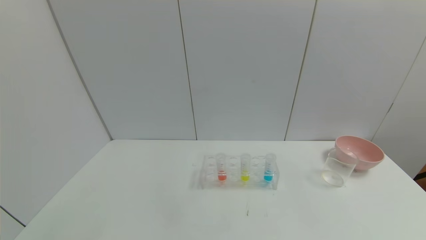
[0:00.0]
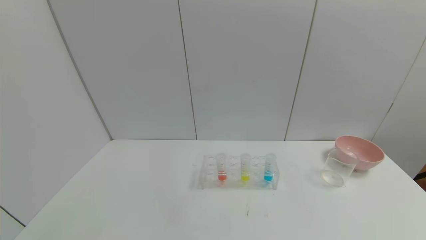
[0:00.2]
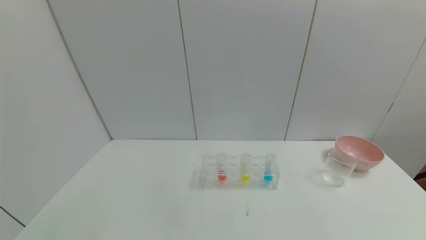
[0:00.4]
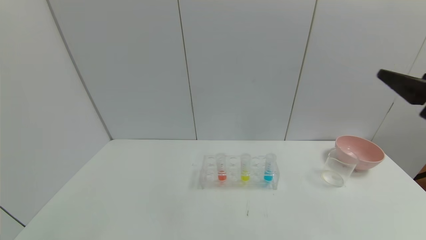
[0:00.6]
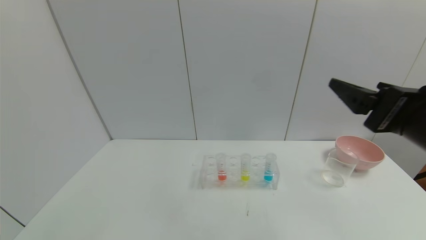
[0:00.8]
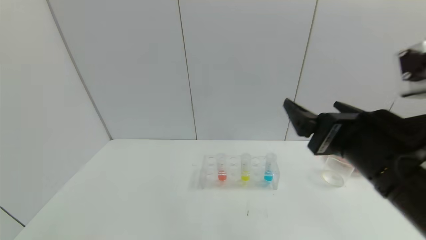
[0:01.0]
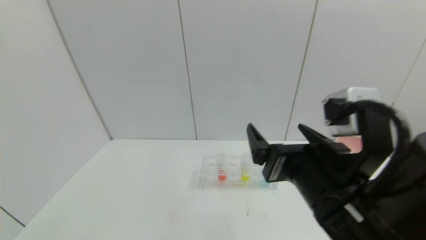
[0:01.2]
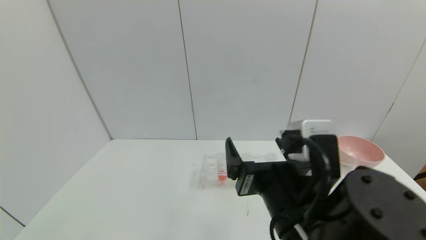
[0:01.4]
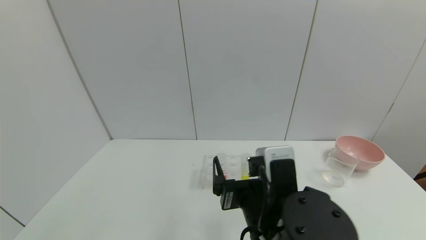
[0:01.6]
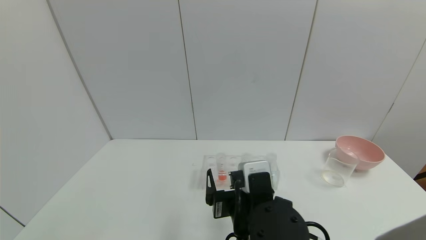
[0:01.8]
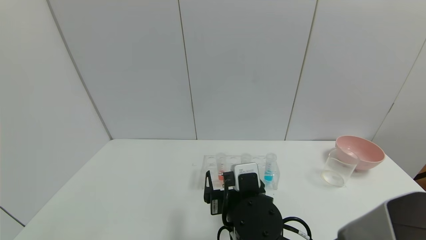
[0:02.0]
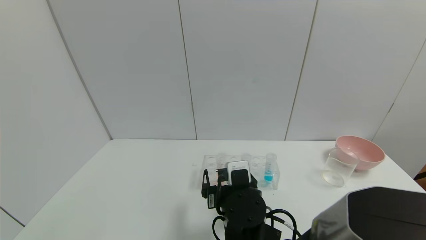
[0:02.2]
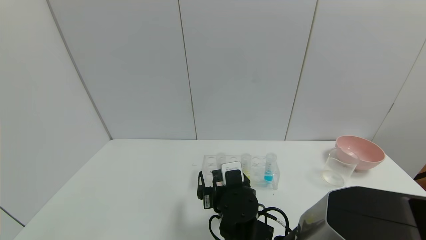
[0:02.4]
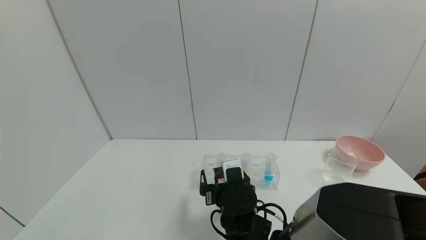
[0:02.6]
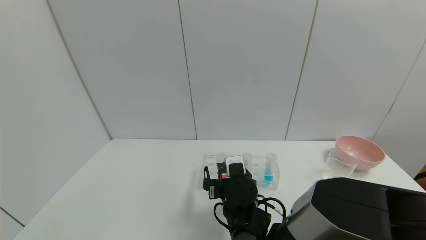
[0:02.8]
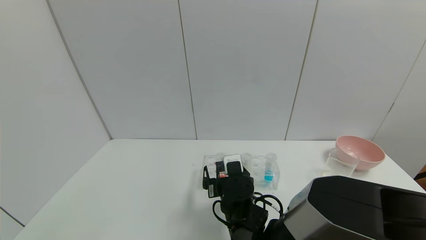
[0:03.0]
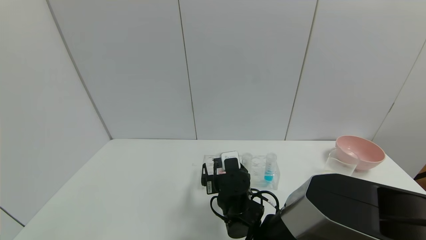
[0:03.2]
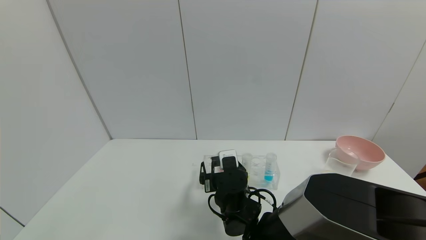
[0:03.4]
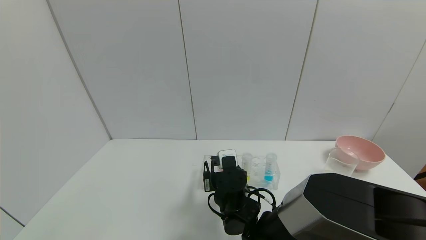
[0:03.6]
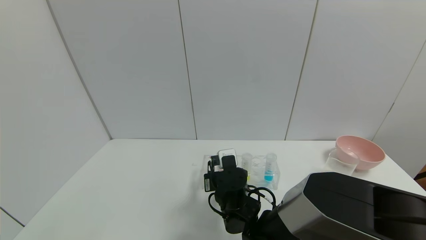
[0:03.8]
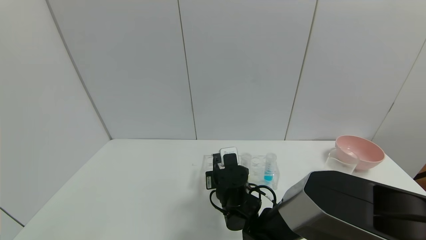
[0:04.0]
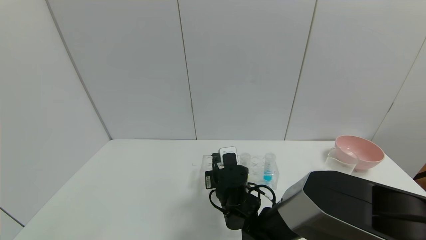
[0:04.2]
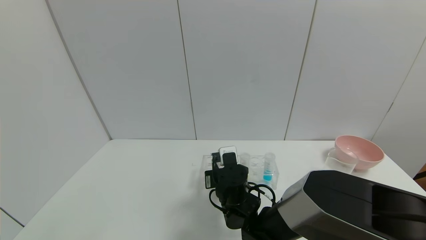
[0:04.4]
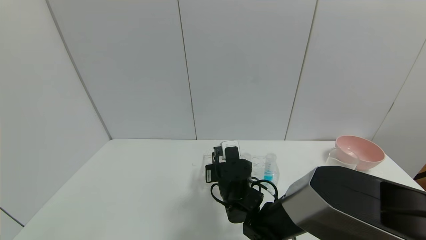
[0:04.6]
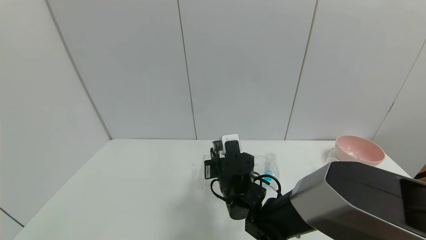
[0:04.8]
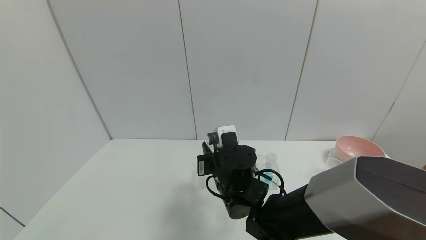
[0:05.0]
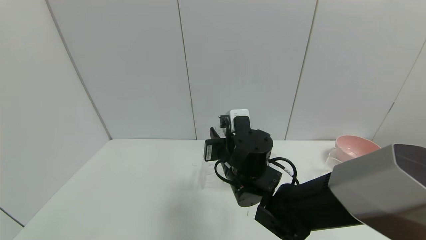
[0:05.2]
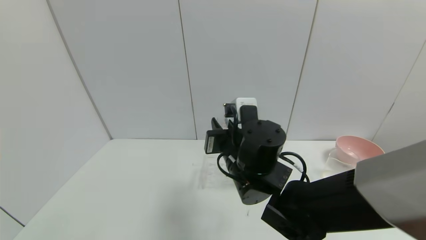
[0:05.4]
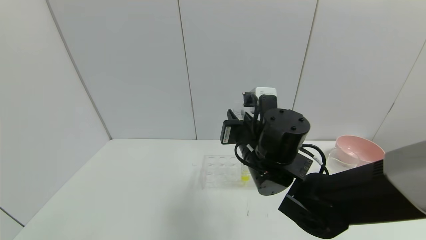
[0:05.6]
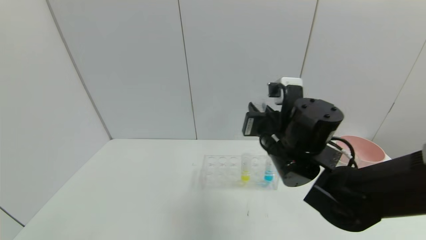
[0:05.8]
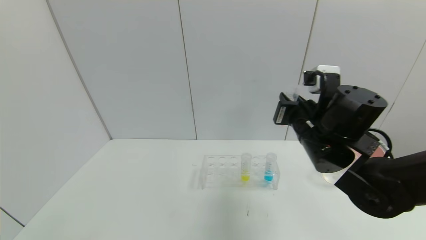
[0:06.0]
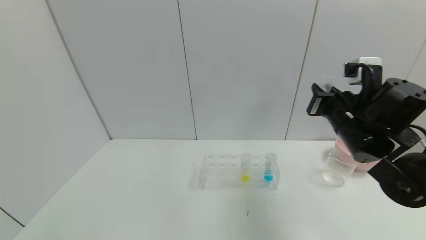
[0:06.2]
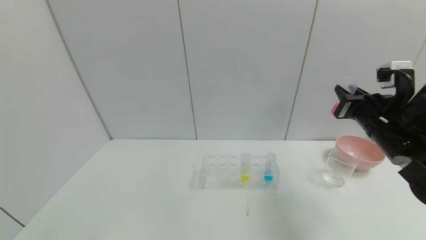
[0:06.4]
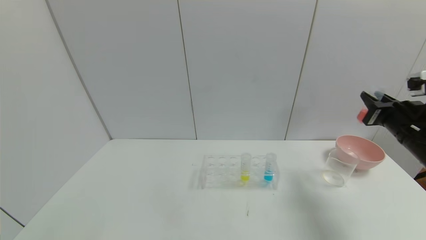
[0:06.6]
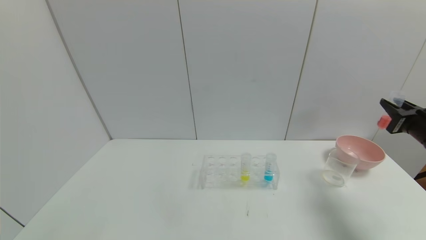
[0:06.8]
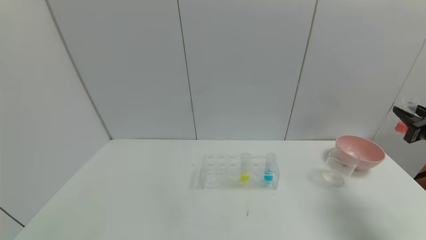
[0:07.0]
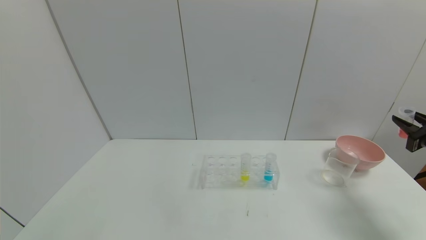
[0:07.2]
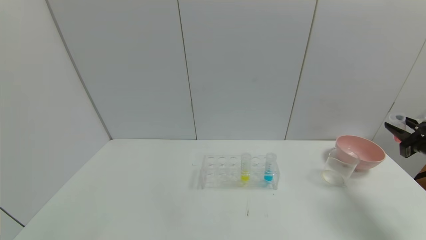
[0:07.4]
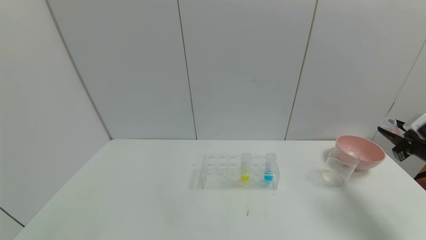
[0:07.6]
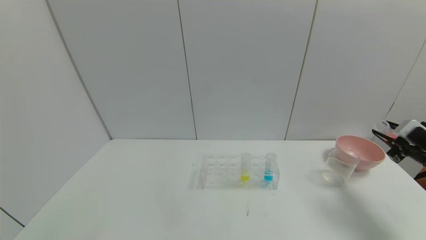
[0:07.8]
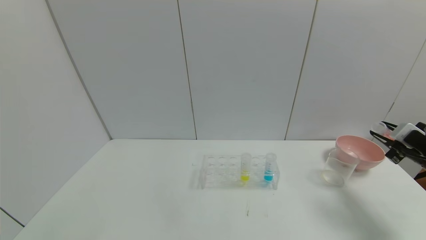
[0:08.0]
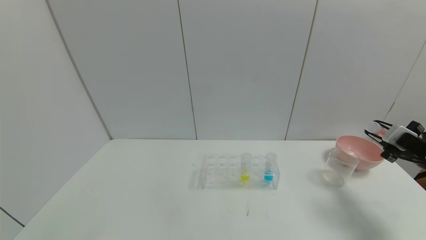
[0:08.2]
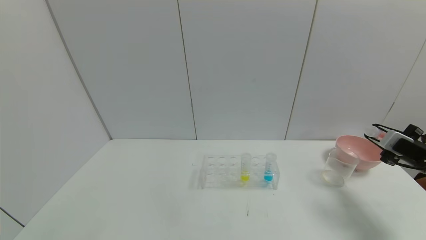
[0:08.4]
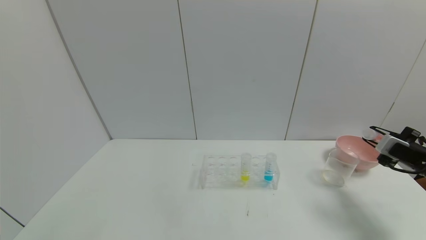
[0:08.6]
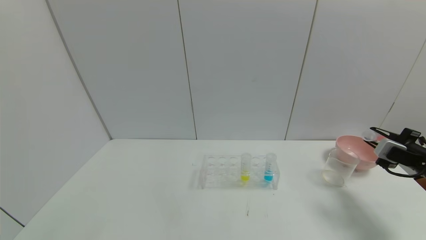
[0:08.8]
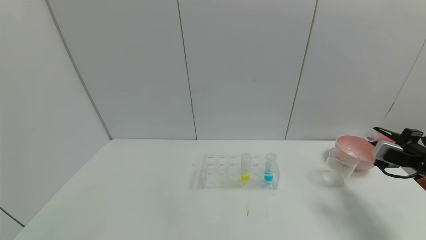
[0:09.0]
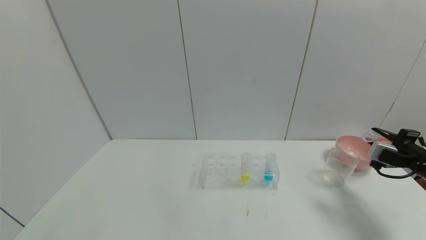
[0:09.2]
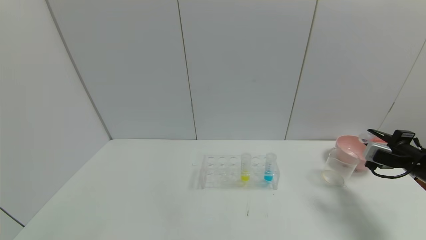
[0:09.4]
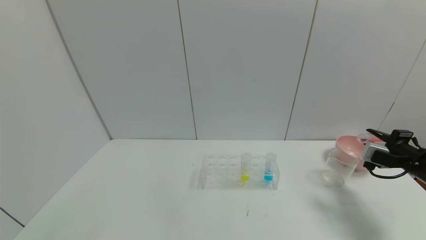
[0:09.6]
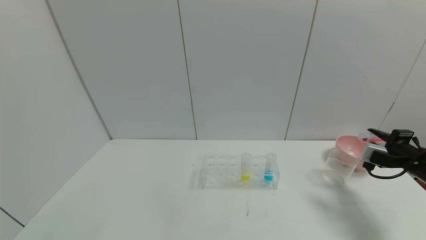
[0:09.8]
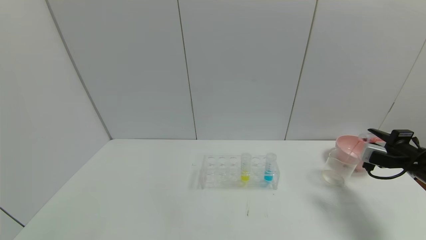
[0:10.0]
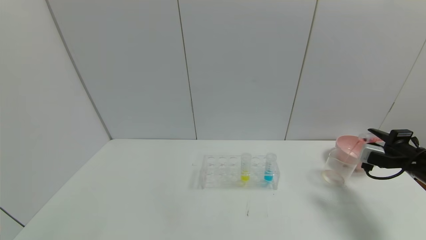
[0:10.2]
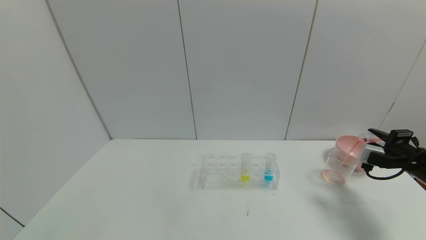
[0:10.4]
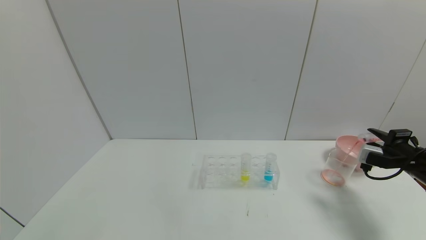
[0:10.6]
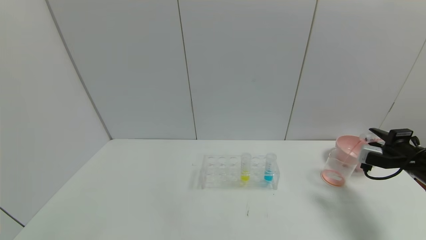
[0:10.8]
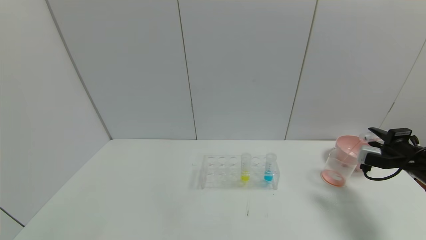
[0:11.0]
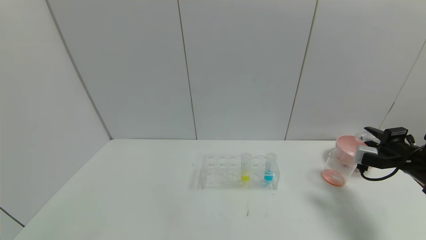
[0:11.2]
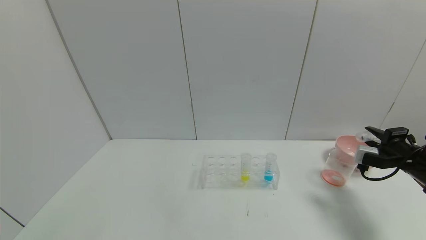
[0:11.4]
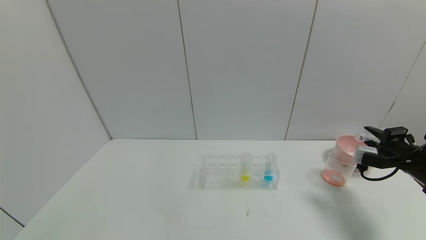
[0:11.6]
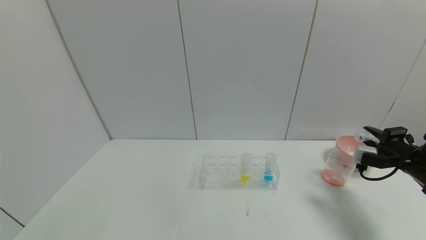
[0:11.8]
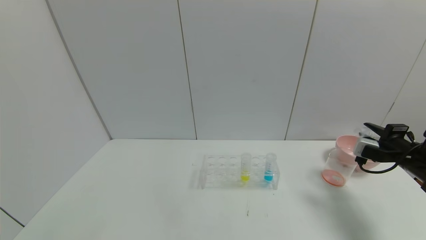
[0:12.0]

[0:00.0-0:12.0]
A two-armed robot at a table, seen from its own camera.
Task of the whole recording: pick up the test tube with yellow pigment and the test tube with red pigment by grippers and pour them into the beaker.
Step, 0:00.0 to 0:04.0: Grasp the red reagent with the right gripper.
Step, 0:04.2 to 0:11.8: Pour the red reagent into the graduated cylinder with the right gripper.
0:00.0 to 0:01.6: The right gripper is displaced to the left and forward by about 35 cm.
0:01.6 to 0:03.0: The right gripper shifts approximately 15 cm forward and downward.
0:03.0 to 0:04.4: The right gripper closes its fingers.
0:04.4 to 0:06.0: The right gripper travels upward and to the right by some 25 cm.
0:06.0 to 0:07.6: The right gripper travels to the right by roughly 30 cm.
0:09.0 to 0:12.0: The grippers stay close to where they were, moving slightly.

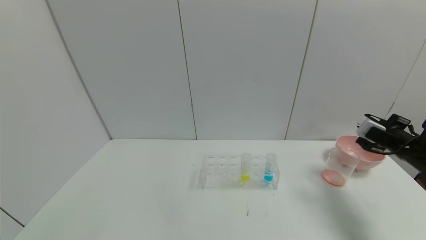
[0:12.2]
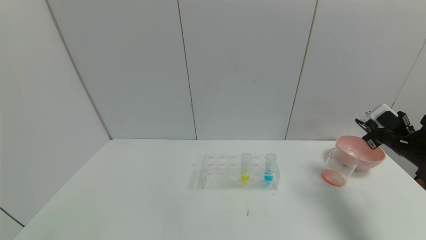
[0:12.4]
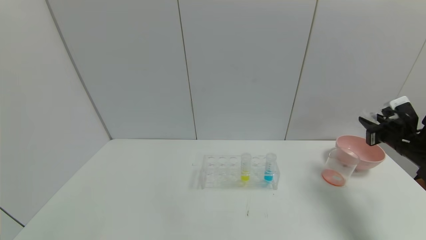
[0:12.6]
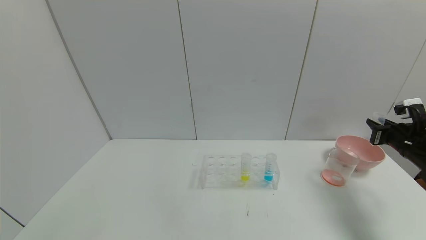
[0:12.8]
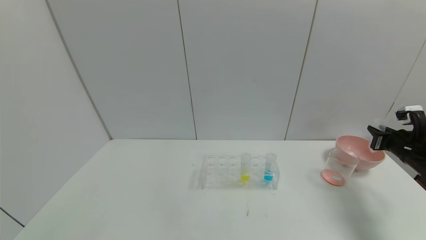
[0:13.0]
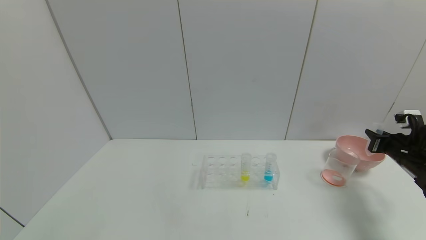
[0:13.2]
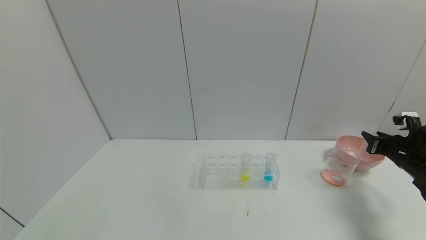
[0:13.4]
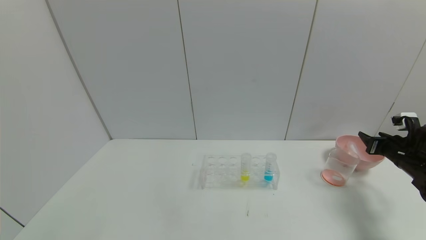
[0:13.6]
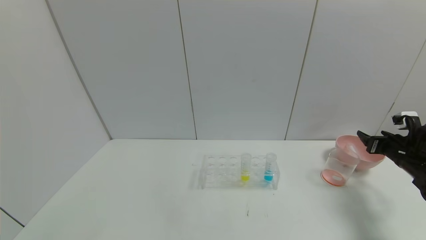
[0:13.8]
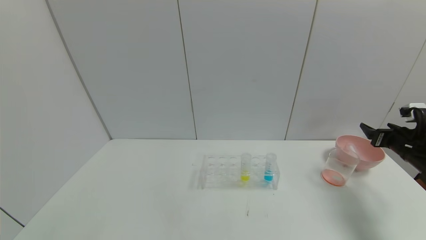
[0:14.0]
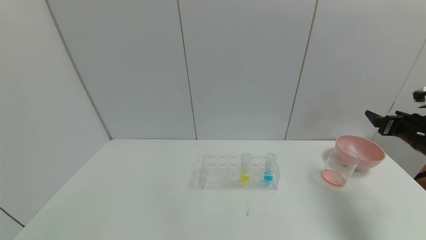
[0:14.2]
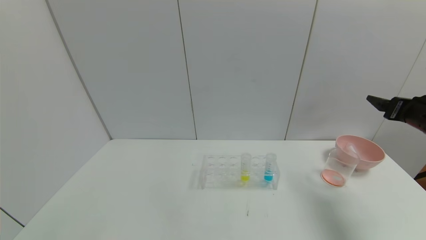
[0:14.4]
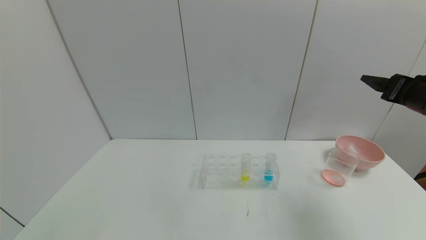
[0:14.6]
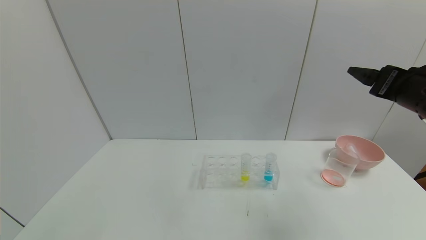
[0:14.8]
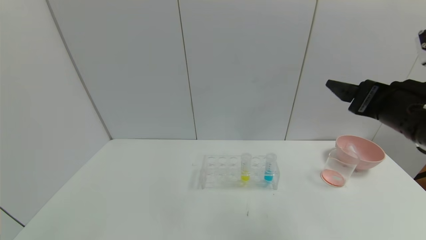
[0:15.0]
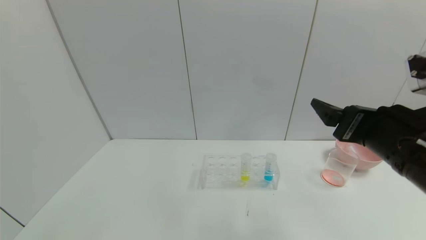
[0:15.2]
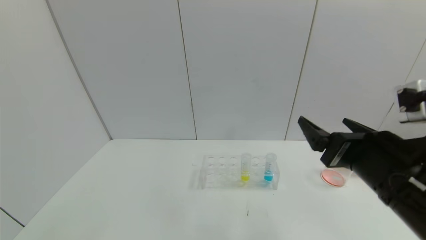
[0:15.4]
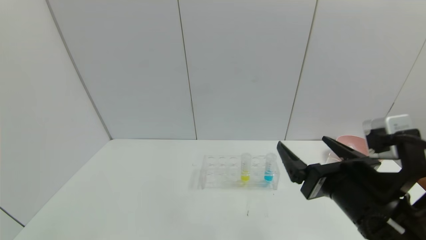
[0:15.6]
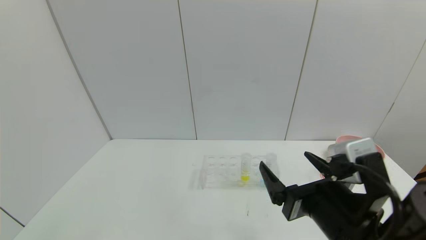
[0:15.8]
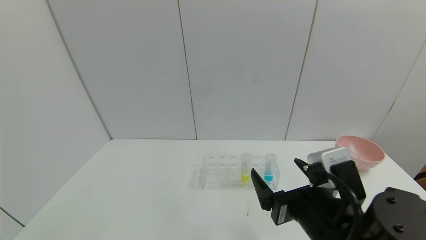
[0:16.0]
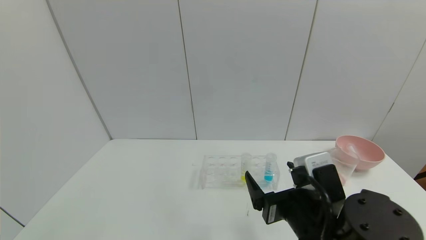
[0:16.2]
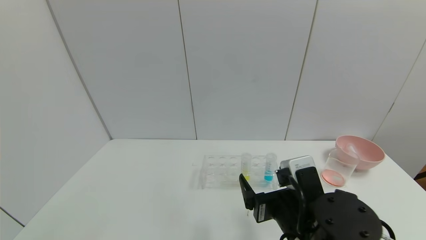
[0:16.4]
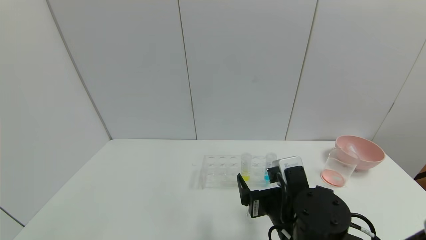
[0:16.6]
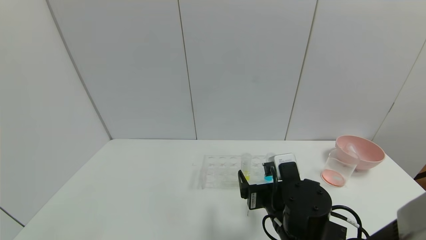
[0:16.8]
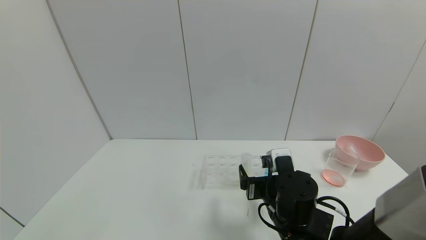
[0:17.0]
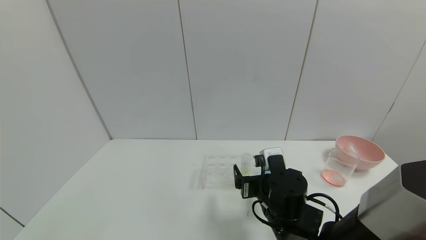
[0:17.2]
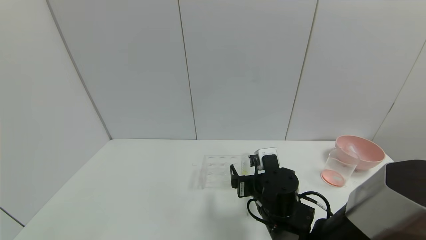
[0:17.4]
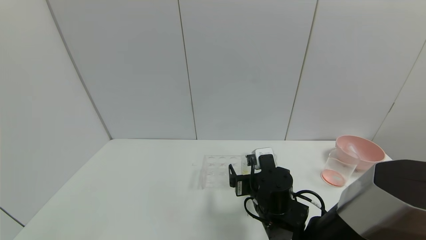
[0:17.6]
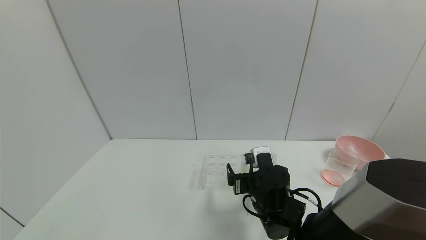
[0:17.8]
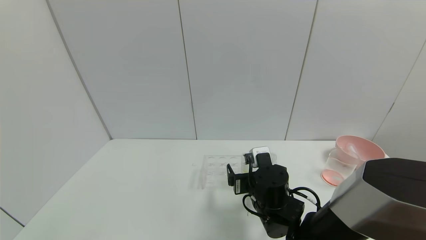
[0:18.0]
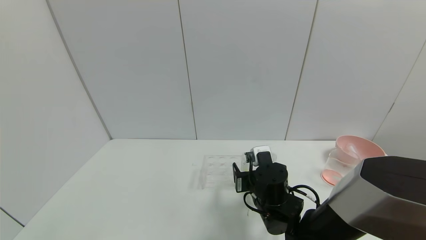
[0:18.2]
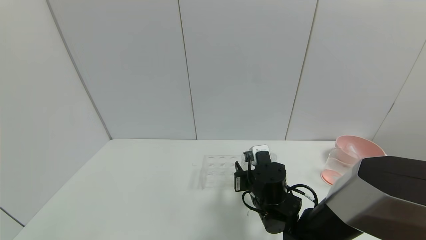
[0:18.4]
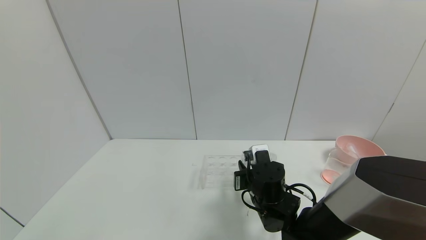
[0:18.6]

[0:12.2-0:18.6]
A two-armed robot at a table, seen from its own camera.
Task of the whole recording: pick up the test tube with yellow pigment and the test tube with red pigment by grippers and pour them into the beaker.
Step, 0:12.2 to 0:13.8: Place the test tube into the bowl with the right gripper.
Step, 0:14.0 to 0:18.6: Grasp the yellow reagent with the right gripper.
0:12.2 to 0:13.8: The right gripper opens its fingers.
0:13.8 to 0:15.4: The right gripper shifts some 30 cm to the left, backward and upward.
0:15.4 to 0:17.0: The right gripper is displaced downward, to the left and forward by approximately 20 cm.
0:17.0 to 0:18.6: The right gripper goes some 5 cm forward, and closes its fingers.
